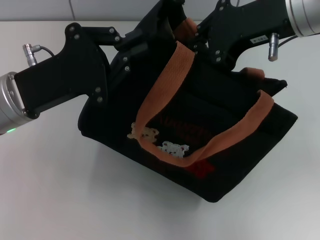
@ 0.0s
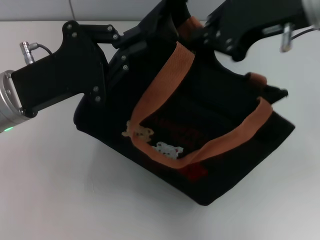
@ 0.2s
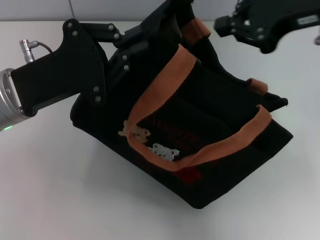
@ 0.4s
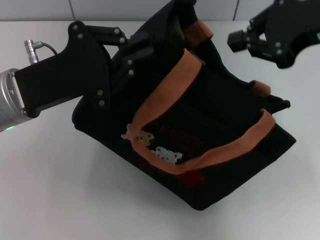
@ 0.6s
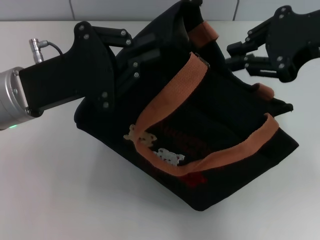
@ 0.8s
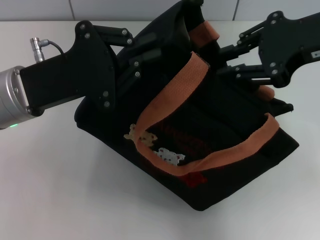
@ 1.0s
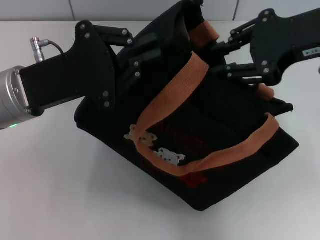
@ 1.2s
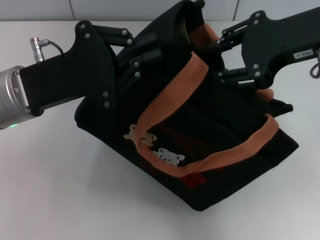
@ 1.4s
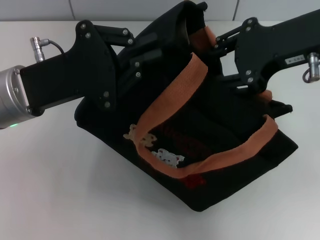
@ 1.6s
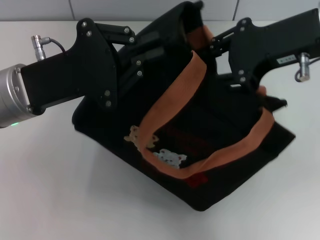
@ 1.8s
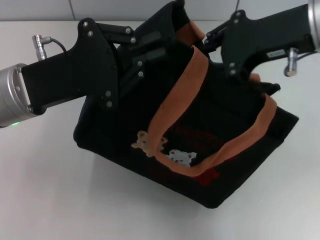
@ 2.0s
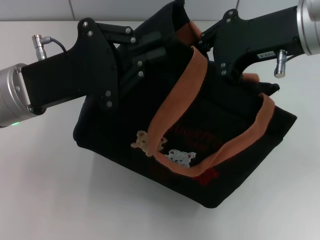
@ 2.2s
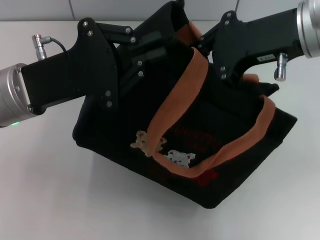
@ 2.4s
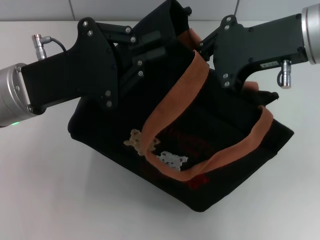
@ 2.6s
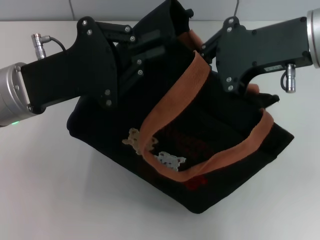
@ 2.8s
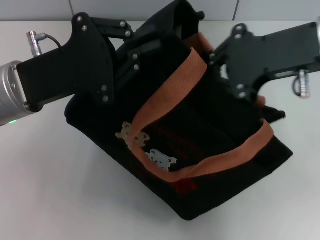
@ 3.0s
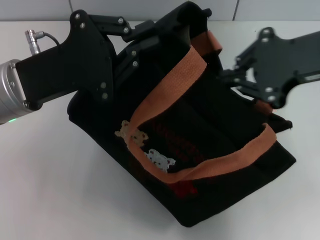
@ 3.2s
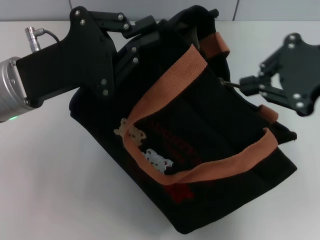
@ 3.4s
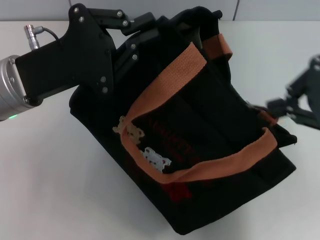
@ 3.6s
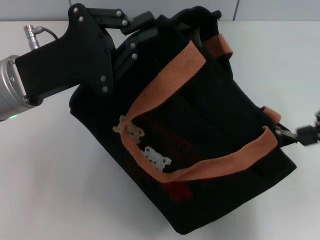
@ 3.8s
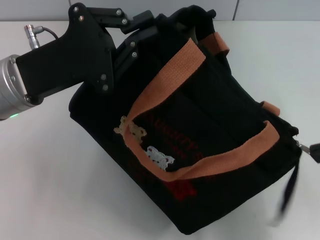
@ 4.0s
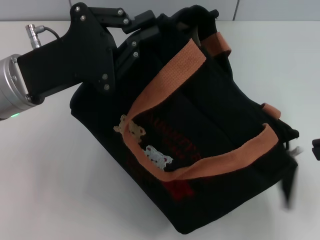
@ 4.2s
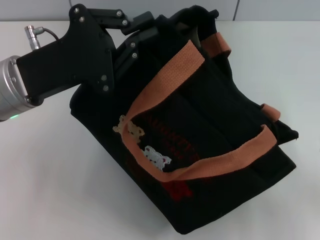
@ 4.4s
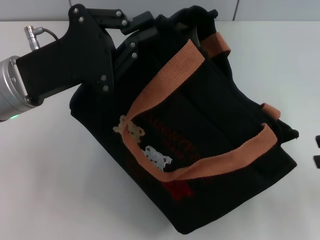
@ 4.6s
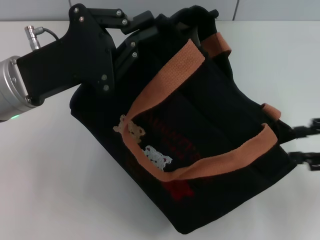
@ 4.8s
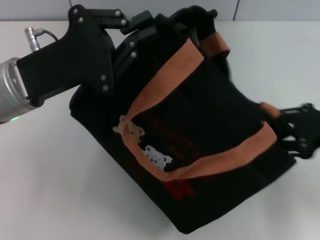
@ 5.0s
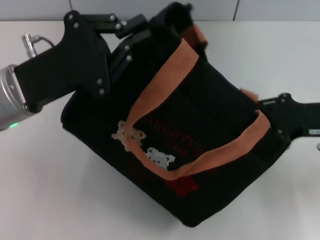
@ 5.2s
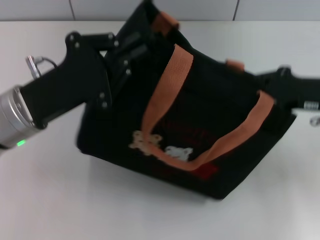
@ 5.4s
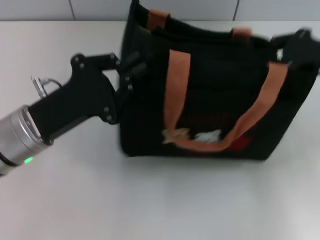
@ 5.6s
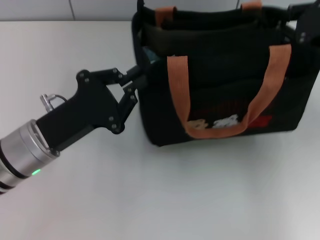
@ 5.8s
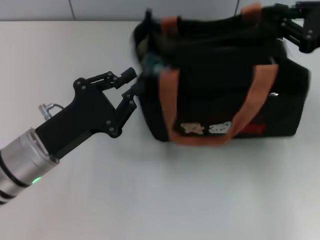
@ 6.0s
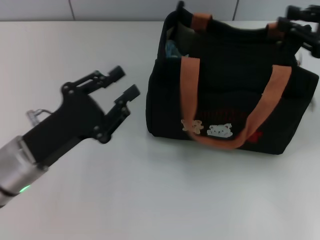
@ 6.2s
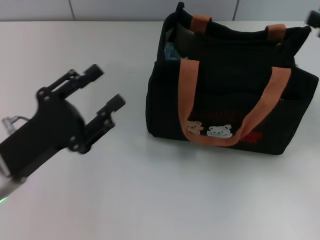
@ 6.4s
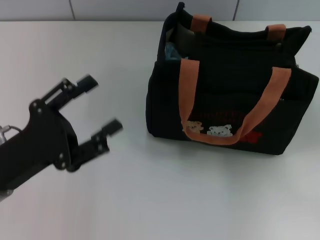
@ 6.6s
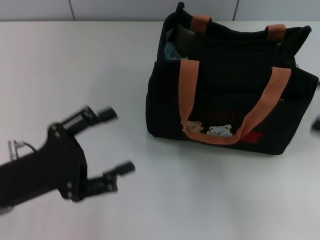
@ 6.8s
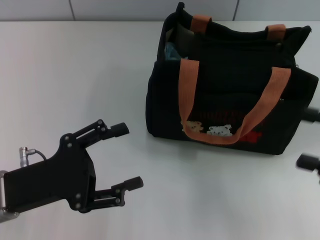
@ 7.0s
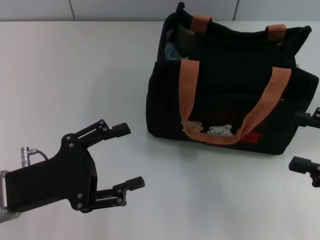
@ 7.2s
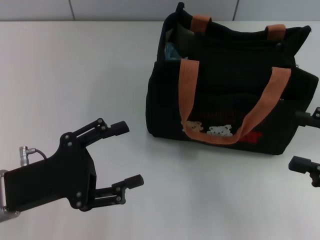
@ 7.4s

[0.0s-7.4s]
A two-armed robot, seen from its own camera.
Step, 0.0s to 4.2s: Pull open the zipper with your right hand.
Step, 4.4s to 5.8s: Grab the bag with your left hand.
1.4s to 3.0s: The right gripper closes up.
3.0s to 4.4s: The right gripper goes approximately 15 cm to the right.
4.4s to 6.0s: The left gripper heads downward and backward, covering some 10 cm. Meanwhile the right gripper moves forward and to the left, some 10 cm, and opens, then closes again.
6.0s to 7.4s: The left gripper moves roughly 5 cm, and opens up. Meanwhile the right gripper travels backward and downward by approximately 15 cm, and opens up.
